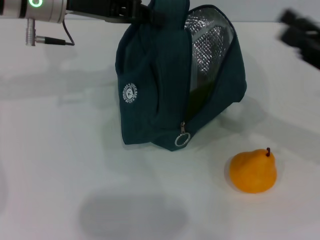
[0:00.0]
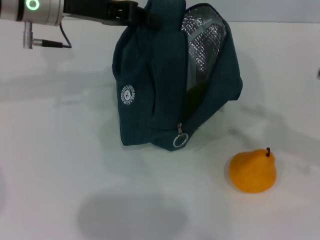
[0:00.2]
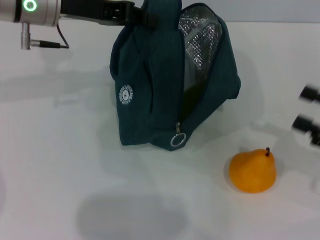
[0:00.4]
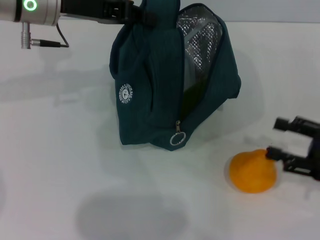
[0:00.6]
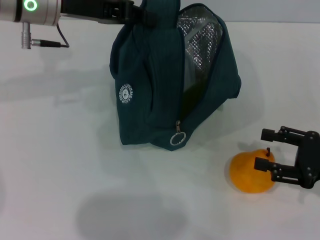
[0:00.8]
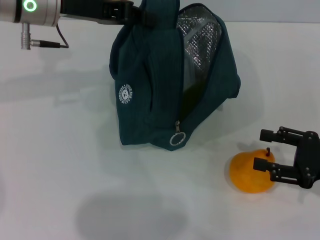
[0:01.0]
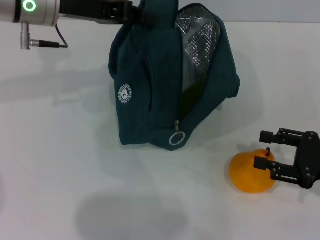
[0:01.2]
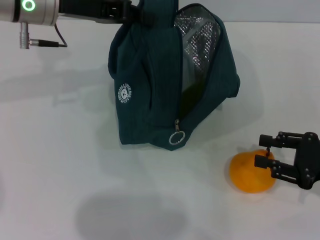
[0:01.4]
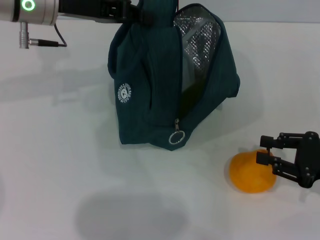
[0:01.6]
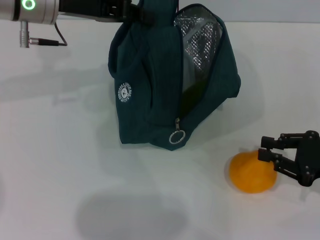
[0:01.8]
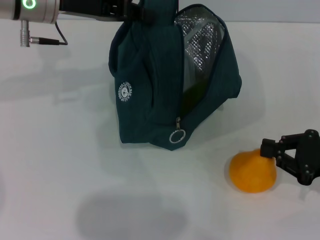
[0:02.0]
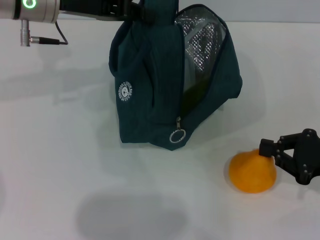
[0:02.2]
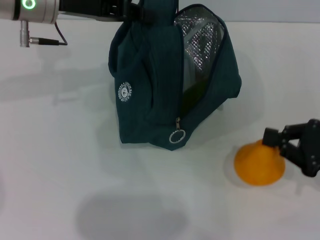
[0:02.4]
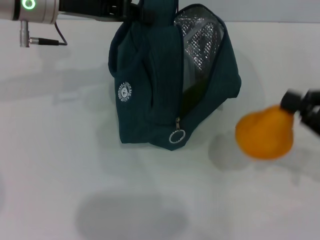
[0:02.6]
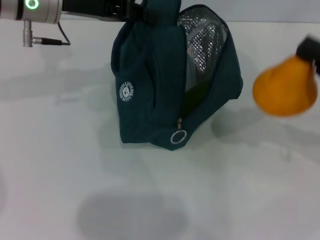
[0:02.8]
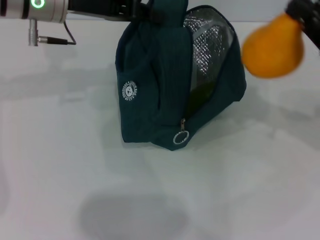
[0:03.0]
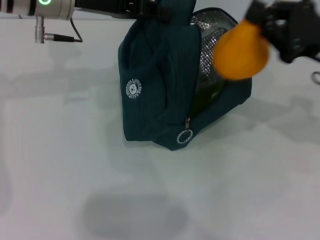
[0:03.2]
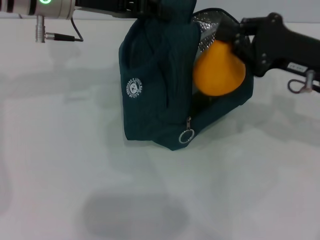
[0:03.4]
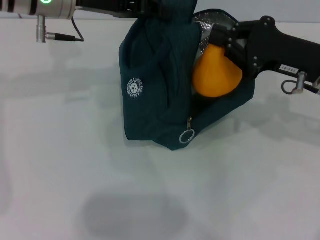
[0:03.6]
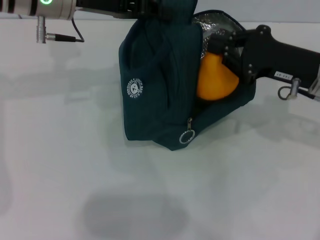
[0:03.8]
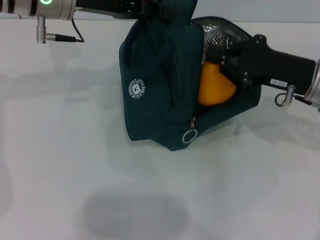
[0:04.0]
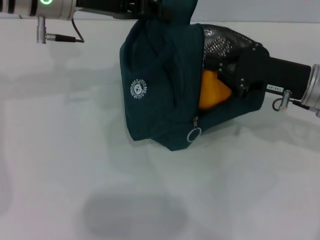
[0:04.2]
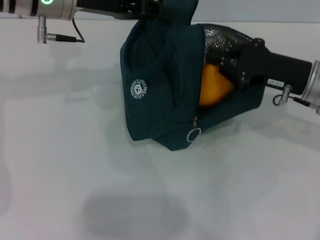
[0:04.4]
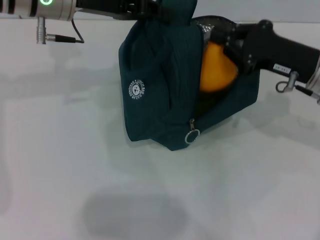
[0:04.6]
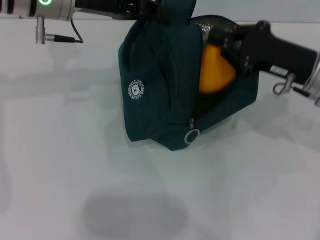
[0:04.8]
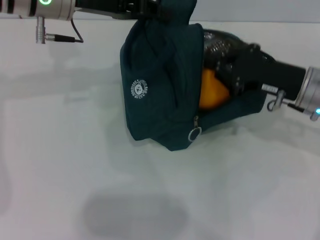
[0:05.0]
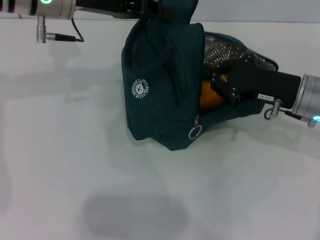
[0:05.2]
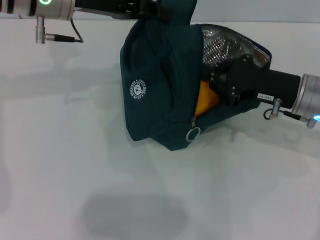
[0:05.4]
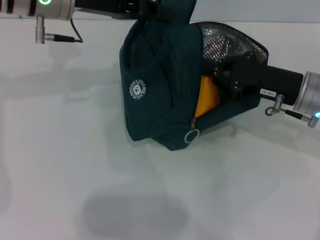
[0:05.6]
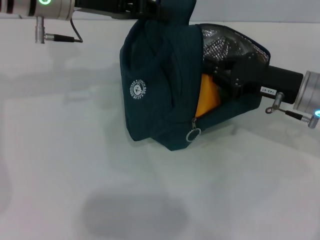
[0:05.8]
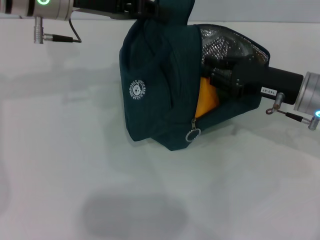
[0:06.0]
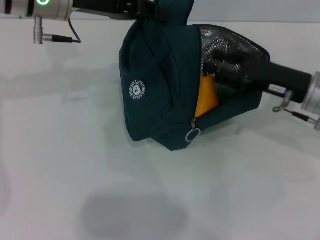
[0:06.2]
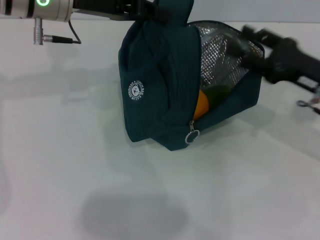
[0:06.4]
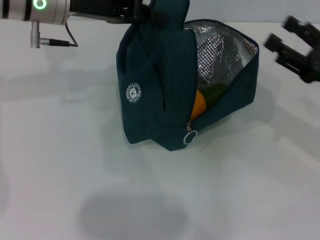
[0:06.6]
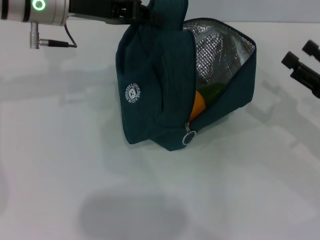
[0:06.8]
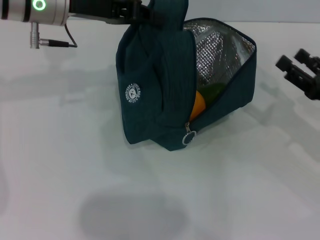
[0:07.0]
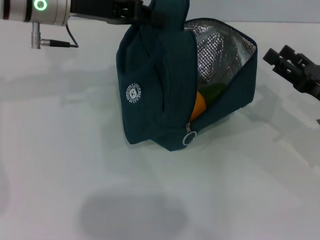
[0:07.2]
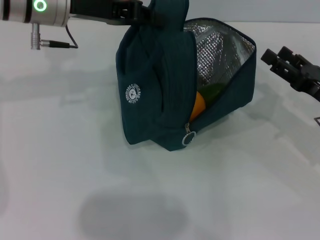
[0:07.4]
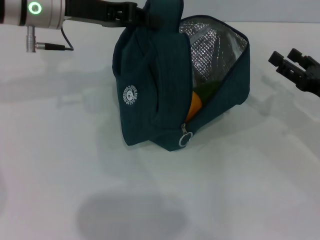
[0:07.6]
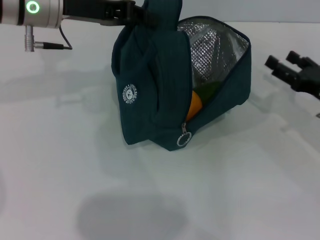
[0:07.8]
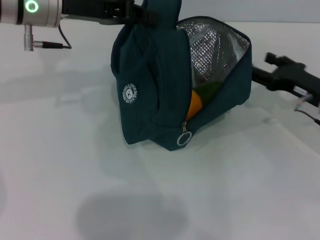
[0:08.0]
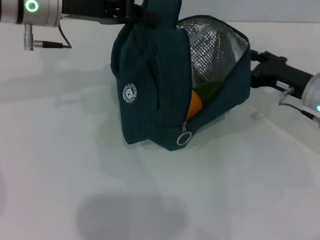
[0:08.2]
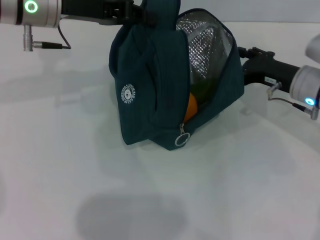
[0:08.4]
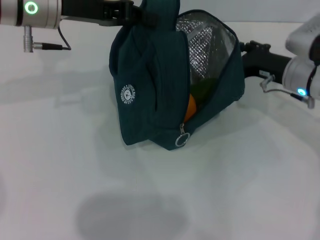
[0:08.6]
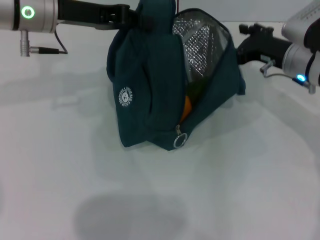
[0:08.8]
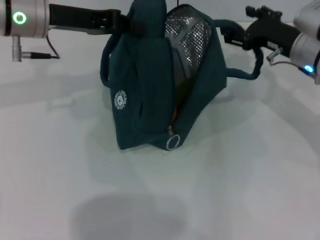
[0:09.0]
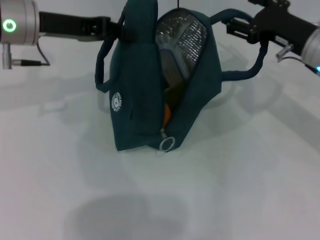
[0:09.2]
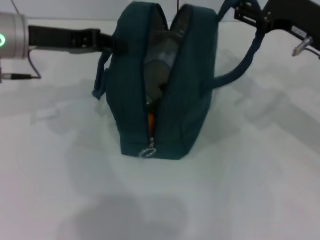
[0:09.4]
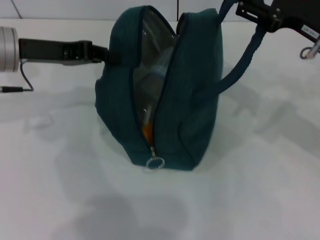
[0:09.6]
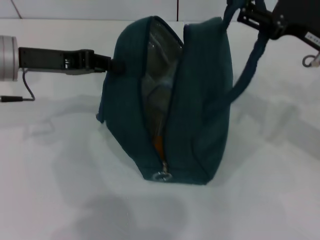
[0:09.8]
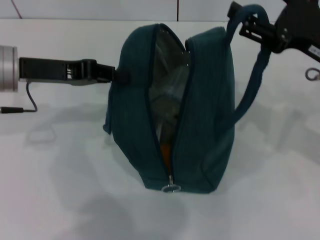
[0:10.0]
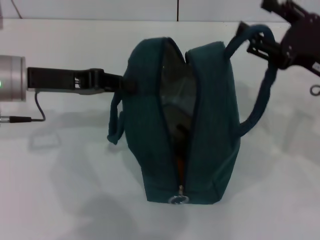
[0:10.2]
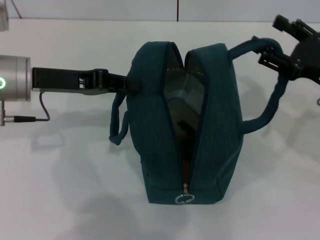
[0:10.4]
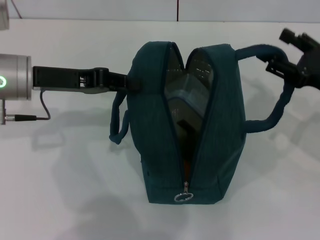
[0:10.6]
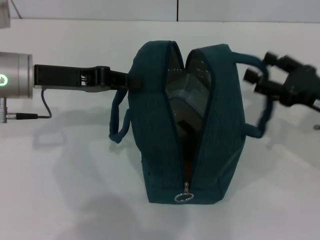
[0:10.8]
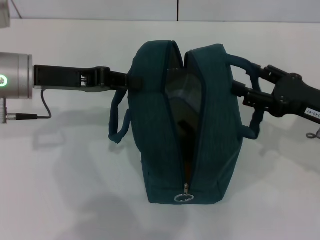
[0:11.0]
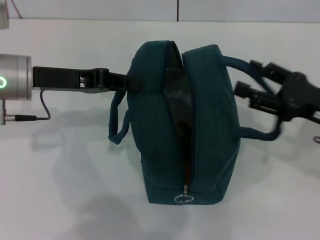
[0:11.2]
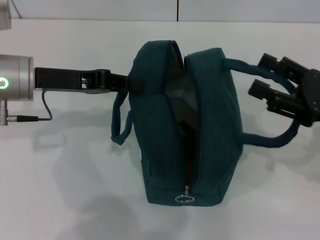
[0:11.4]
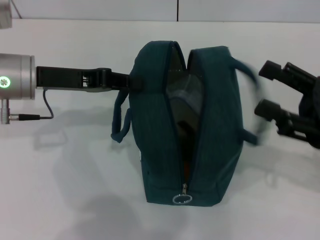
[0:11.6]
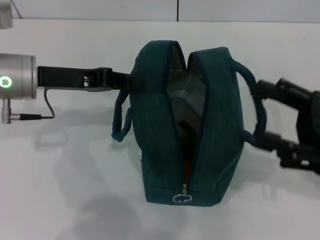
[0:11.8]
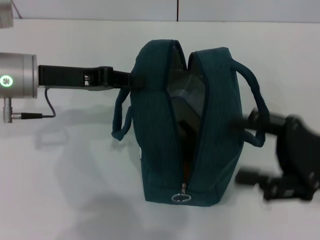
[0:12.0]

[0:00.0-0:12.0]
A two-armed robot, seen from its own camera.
Step, 0:00.0 to 0:02.0: Grab the pear with your right hand.
Step, 0:06.4 to 0:10.6: Hold the lunch bag with your right hand.
0:00.0 to 0:01.6: The right gripper shifts roughly 5 cm downward.
0:01.6 to 0:03.0: The right gripper is displaced upward and forward by approximately 10 cm, and closes its fingers.
0:03.0 to 0:04.4: The right gripper shifts some 5 cm to the left.
0:04.4 to 0:06.0: The grippers make only small movements.
0:06.0 to 0:07.6: The right gripper travels to the right by about 10 cm, and opens its fingers.
0:07.6 to 0:09.0: The right gripper shifts some 15 cm forward, to the left and upward.
0:09.0 to 0:10.4: The right gripper shifts approximately 10 cm backward and to the right. Meanwhile the left gripper travels backward by about 5 cm.
0:10.4 to 0:12.0: The right gripper travels backward by about 5 cm.

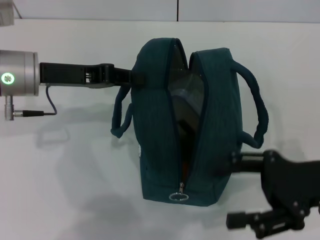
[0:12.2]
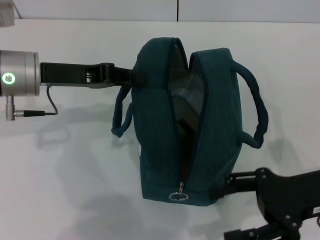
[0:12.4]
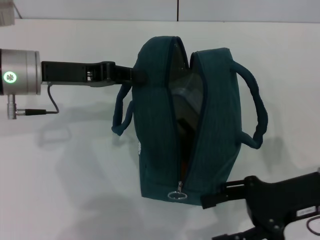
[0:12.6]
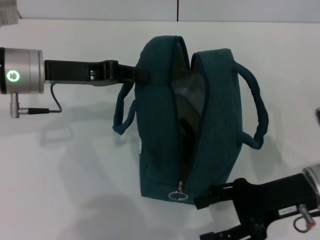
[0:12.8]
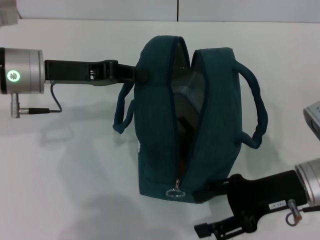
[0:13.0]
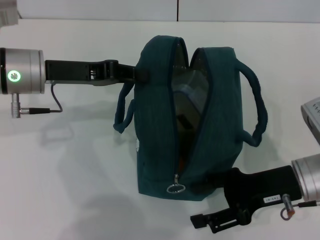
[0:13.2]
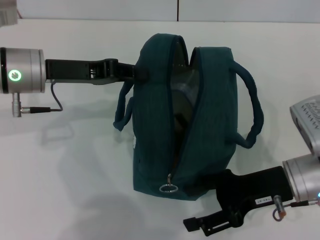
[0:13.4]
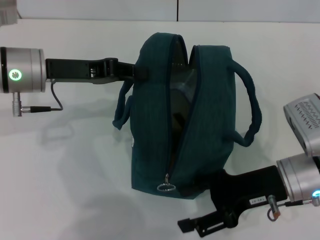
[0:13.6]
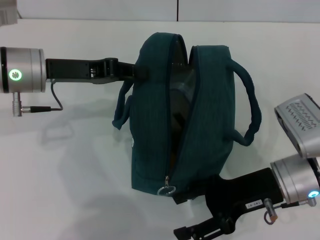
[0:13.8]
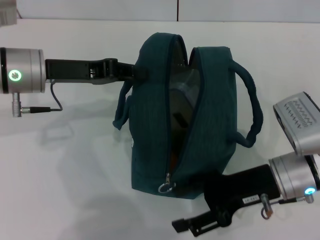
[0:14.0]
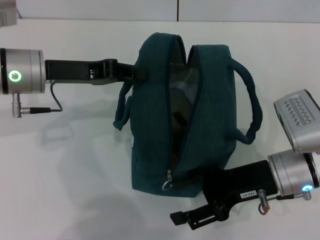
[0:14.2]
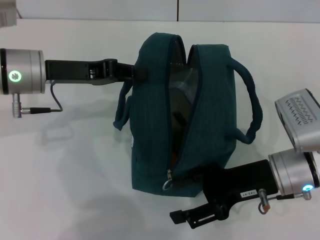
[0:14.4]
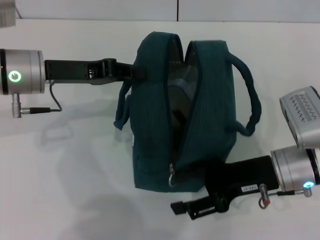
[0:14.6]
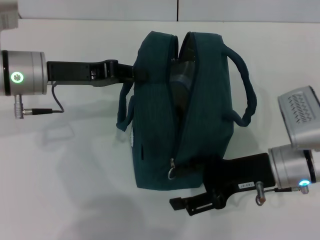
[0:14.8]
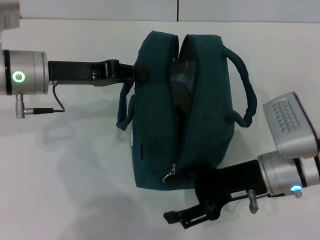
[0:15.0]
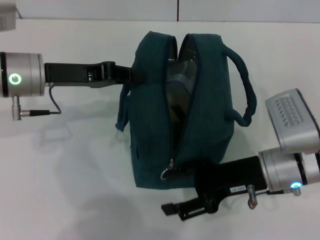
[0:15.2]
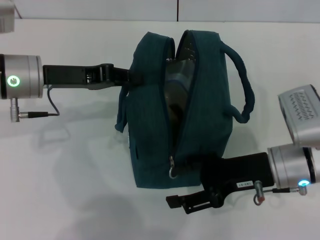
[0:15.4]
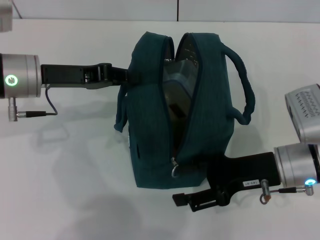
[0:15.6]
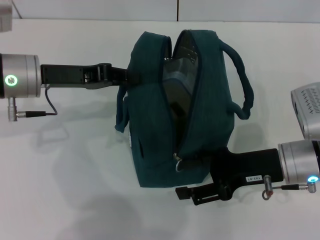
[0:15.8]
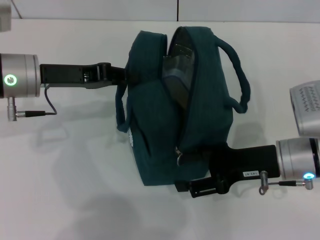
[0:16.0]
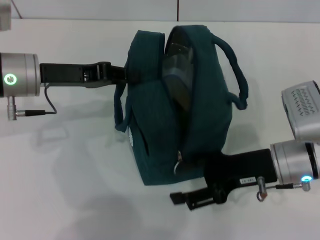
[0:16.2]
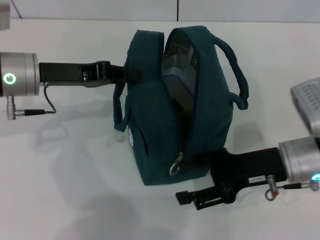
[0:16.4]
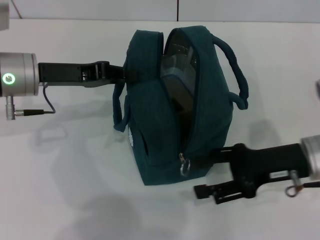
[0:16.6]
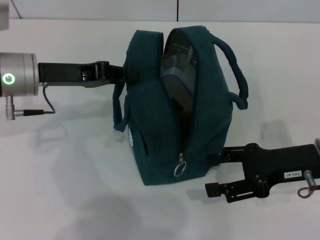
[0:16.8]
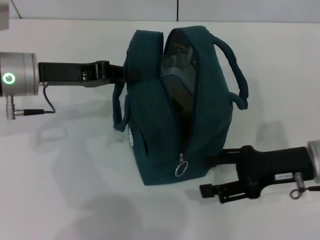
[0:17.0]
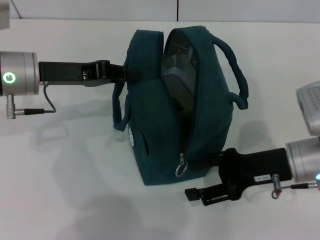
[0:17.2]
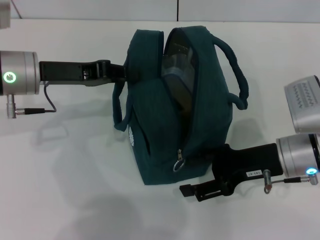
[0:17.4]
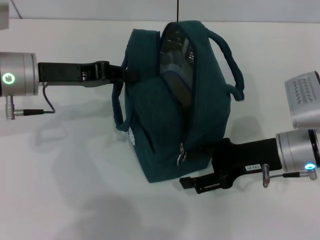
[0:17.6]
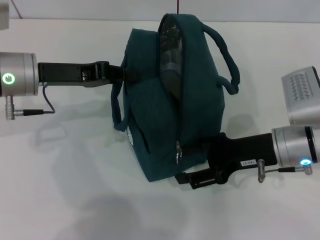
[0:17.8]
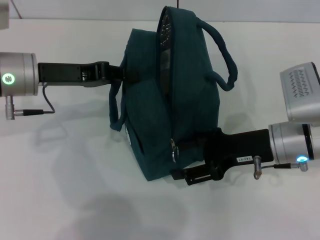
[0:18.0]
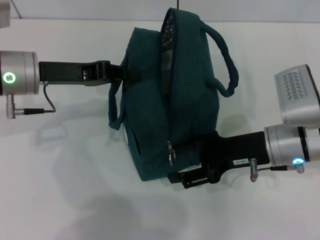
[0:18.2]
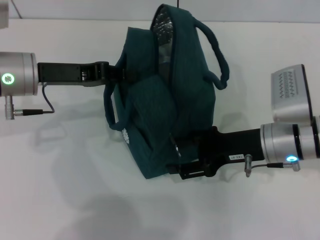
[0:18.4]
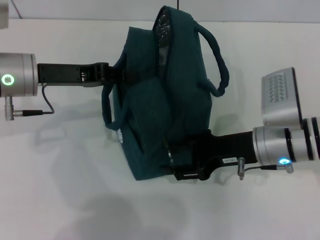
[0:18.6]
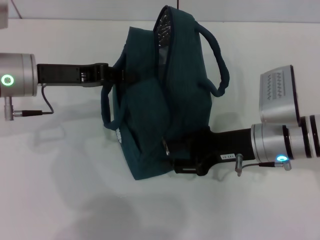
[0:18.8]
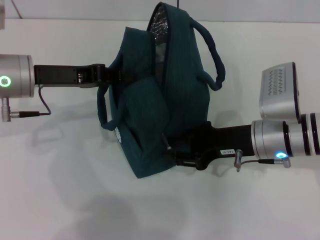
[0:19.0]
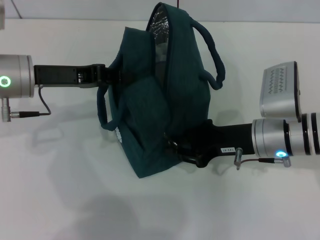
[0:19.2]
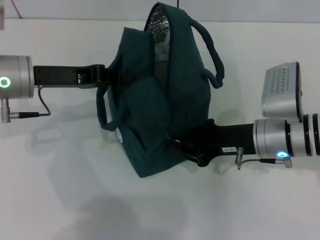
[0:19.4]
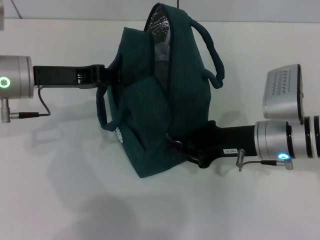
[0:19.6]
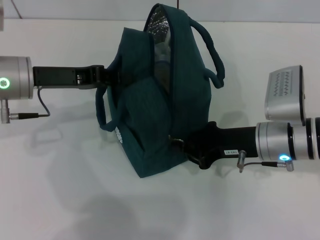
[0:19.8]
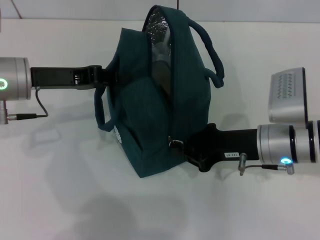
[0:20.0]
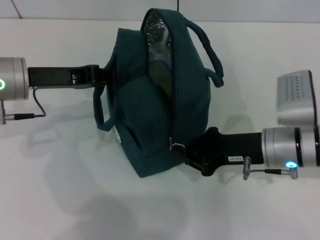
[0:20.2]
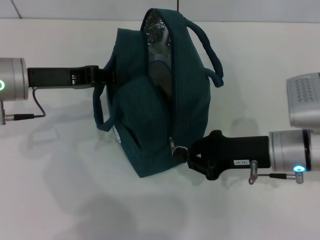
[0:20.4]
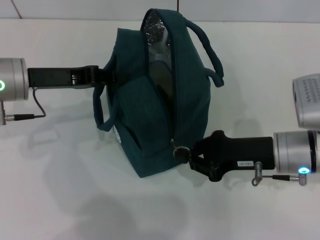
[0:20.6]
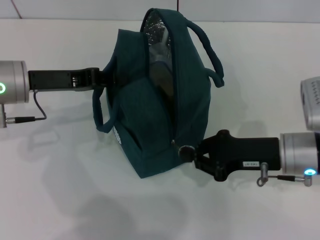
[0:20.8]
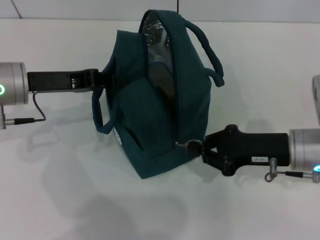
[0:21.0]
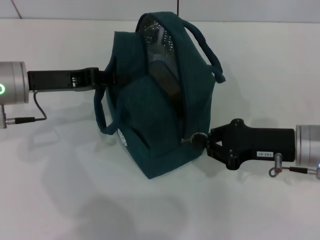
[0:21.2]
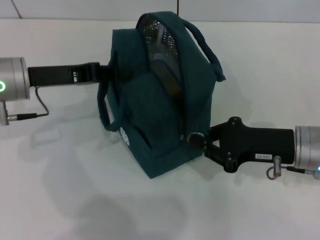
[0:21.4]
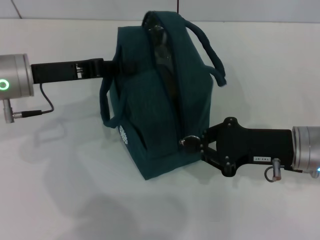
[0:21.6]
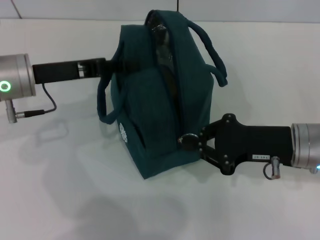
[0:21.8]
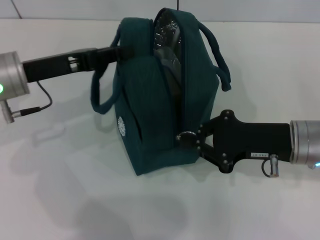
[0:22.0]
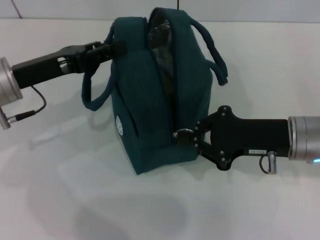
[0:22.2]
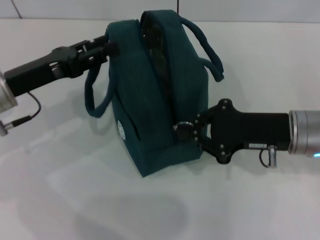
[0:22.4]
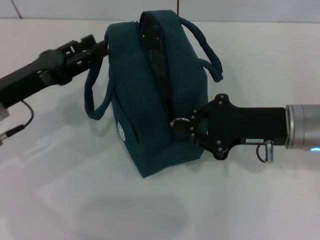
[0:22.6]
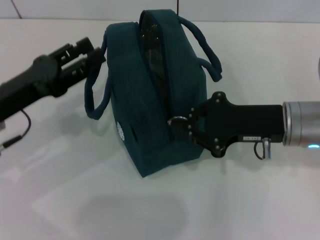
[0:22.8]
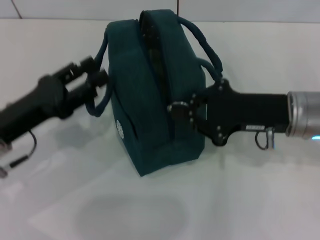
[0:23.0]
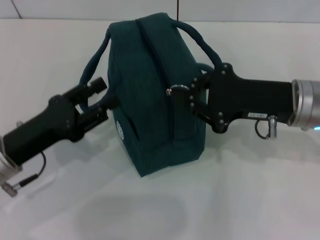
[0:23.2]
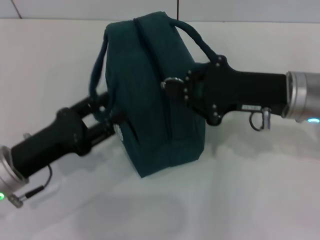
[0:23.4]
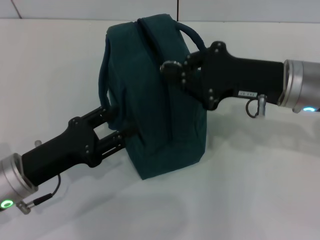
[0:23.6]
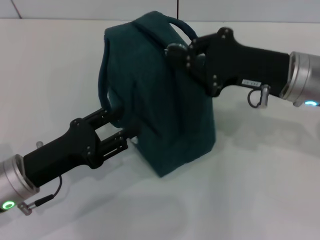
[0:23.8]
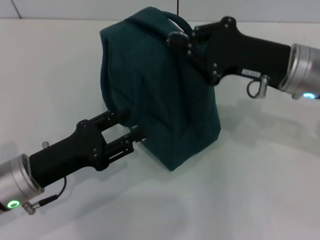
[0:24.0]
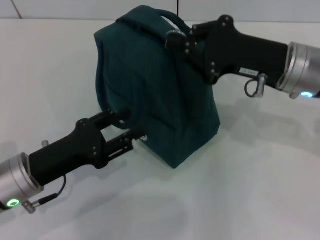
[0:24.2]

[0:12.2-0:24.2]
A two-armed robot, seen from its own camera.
Step, 0:12.2 to 0:22.4: Hold the lunch bag with your left hand.
0:12.2 to 0:13.8: The right gripper travels to the left by roughly 5 cm.
0:15.2 to 0:16.6: The right gripper shifts roughly 5 cm to the right.
0:16.6 to 0:18.2: The grippers stay close to where they were, moving slightly.
0:18.2 to 0:19.8: The right gripper closes up.
0:19.8 to 0:21.2: The right gripper ends up some 5 cm from where it was.
0:21.2 to 0:22.6: The left gripper changes place by some 5 cm, and opens.
0:22.6 to 0:24.2: The left gripper is displaced backward and downward by about 10 cm. Meanwhile the right gripper shifts by some 5 cm.
